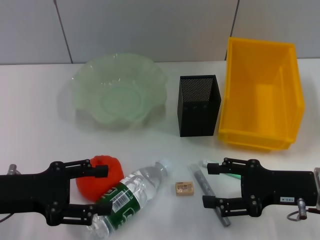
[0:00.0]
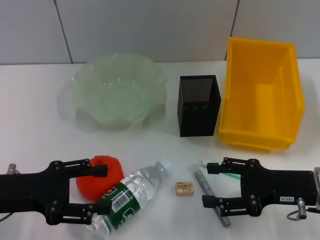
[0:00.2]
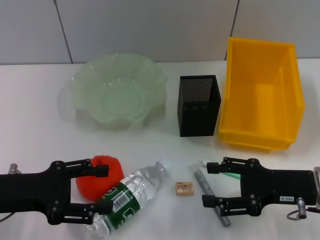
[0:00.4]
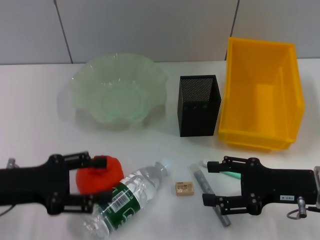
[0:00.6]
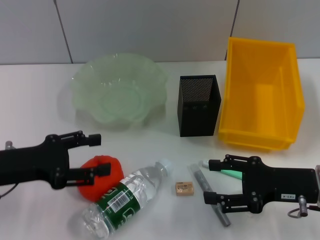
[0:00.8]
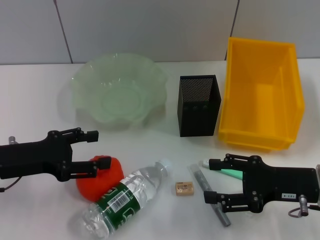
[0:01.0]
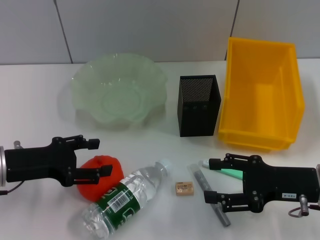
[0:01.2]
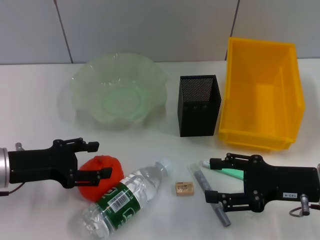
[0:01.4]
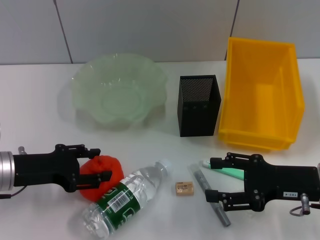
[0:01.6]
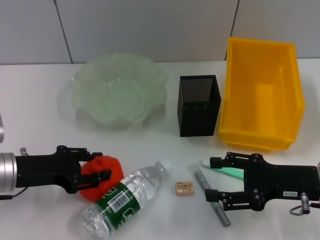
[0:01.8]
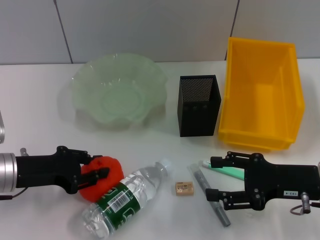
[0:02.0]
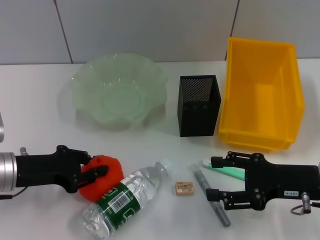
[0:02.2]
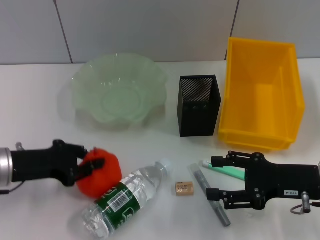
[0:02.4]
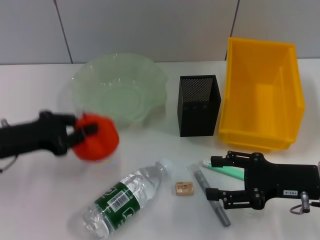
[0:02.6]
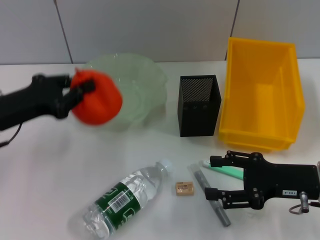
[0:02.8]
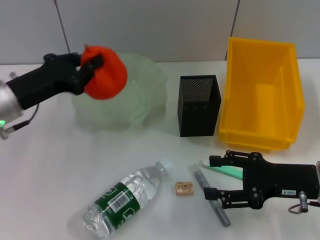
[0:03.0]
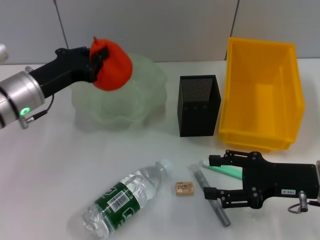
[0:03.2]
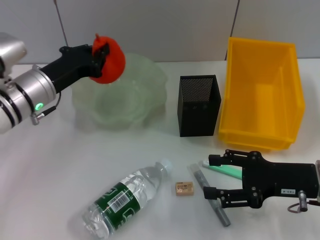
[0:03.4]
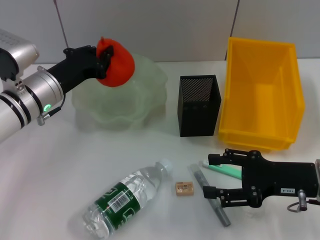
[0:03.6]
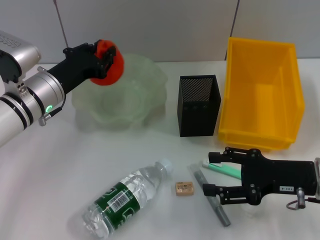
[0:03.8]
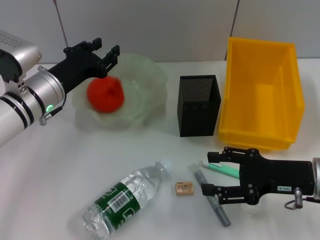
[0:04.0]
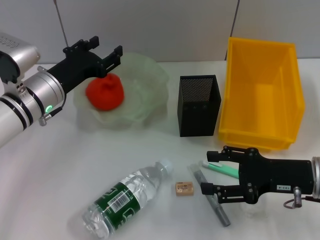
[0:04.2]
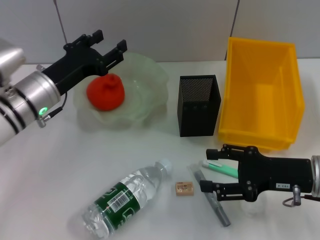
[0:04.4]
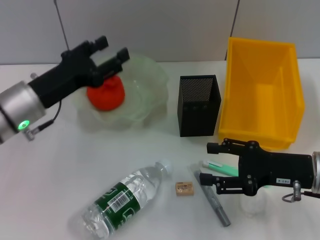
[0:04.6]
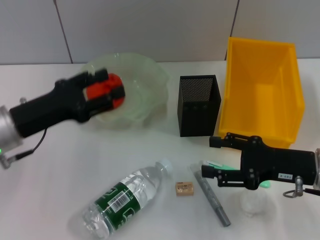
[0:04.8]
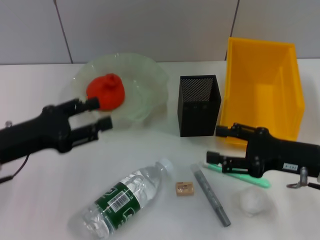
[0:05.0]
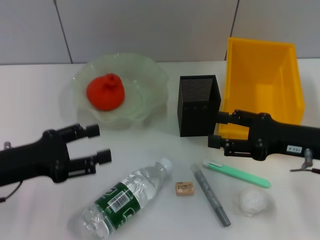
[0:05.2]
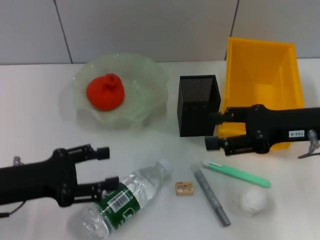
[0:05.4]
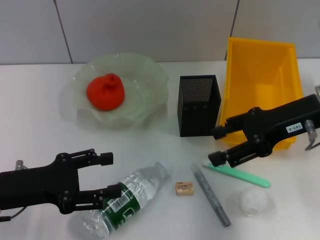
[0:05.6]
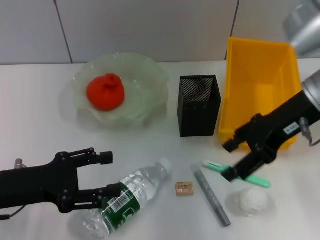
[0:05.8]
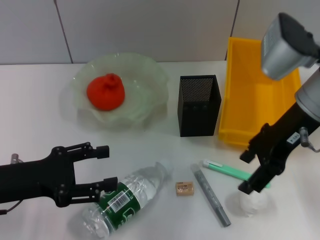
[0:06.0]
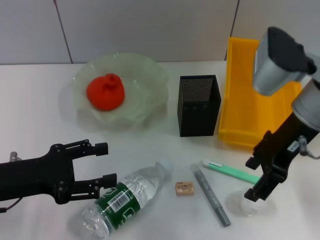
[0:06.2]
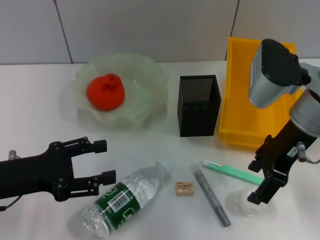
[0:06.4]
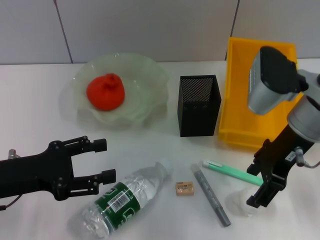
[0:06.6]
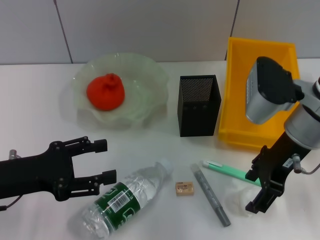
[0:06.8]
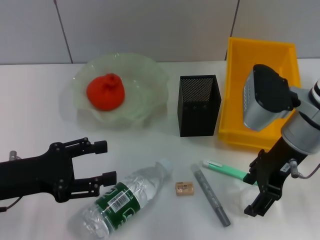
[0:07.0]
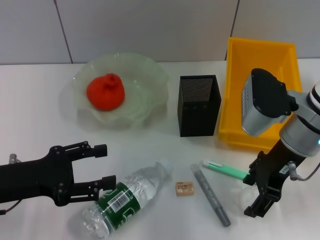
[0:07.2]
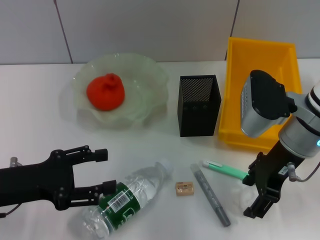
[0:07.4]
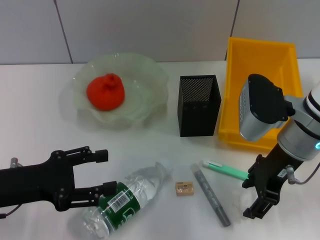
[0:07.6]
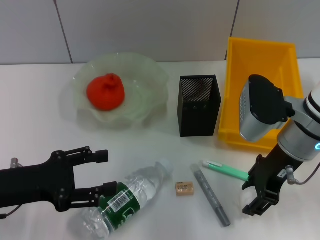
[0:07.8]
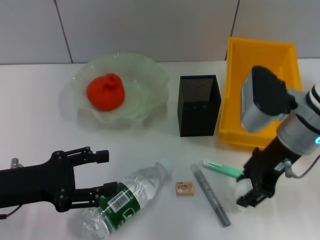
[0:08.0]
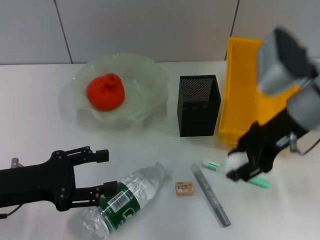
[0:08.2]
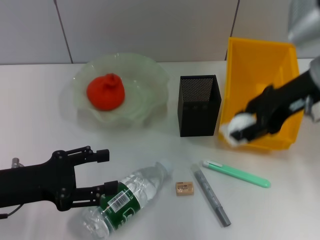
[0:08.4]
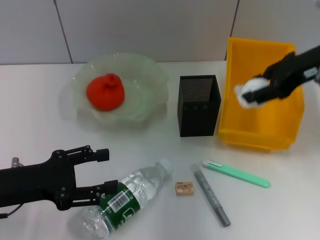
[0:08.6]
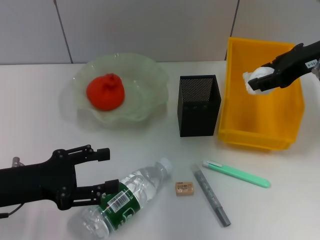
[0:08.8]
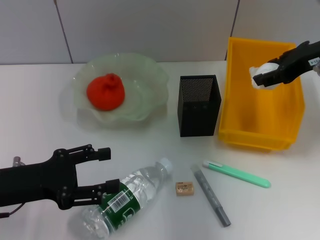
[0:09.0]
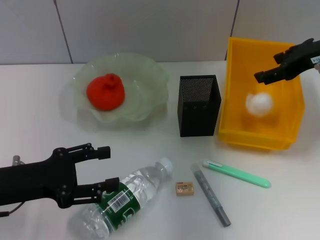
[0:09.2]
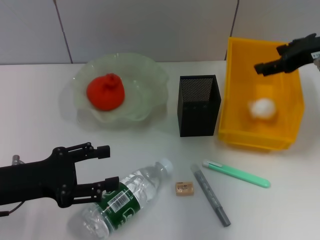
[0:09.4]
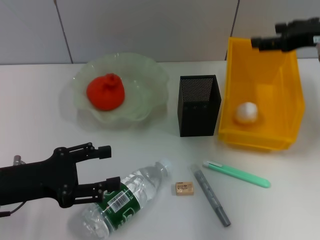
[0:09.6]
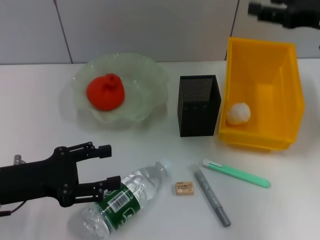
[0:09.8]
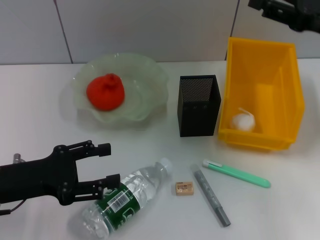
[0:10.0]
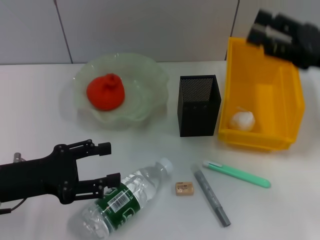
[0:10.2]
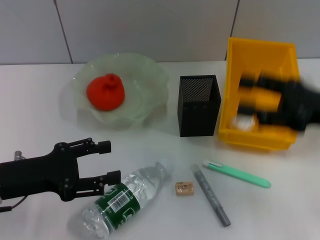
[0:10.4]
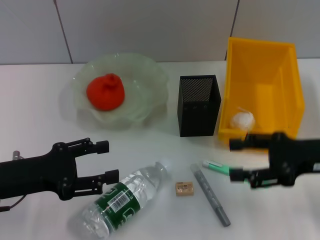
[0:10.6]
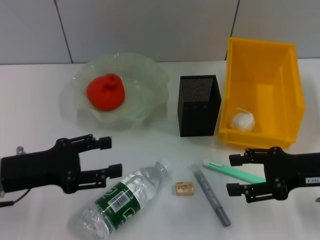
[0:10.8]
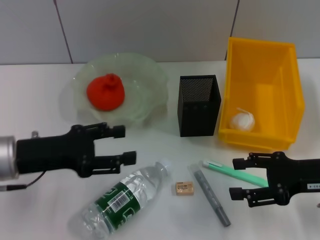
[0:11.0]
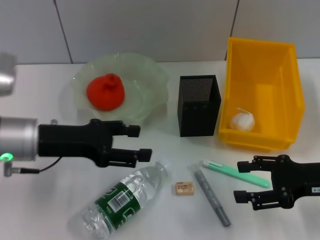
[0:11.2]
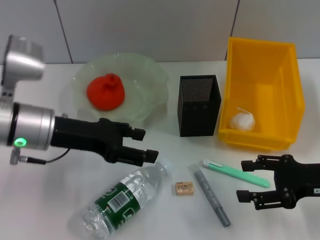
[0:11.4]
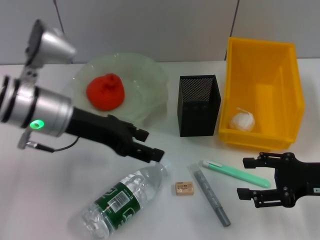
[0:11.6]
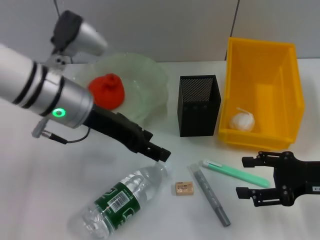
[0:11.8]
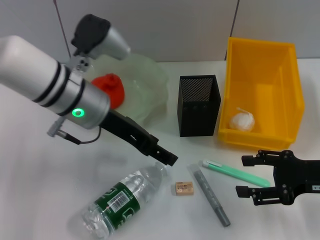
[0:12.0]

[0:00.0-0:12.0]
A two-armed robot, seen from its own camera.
Step, 0:00.0 to 0:02.2: Grab the orange with the left hand.
Step, 0:02.4 to 0:04.0: Place the orange into the fruit bowl with the left hand.
Step, 0:04.2 to 0:07.8: Grab the paper ball with the right hand.
Step, 0:08.0 to 0:09.6: Place the paper ball into the trash can with the right hand.
0:00.0 to 0:01.6: The left gripper moves approximately 5 cm.
0:01.6 to 0:03.0: The left gripper moves some 5 cm, and closes up.
0:03.0 to 0:04.4: The left gripper moves roughly 5 cm, and opens.
0:04.4 to 0:06.0: The left gripper travels backward and to the left by approximately 15 cm, while the right gripper is displaced upward, forward and to the left by approximately 15 cm.
0:06.0 to 0:07.6: The right gripper travels downward by some 5 cm.
0:07.6 to 0:09.0: The right gripper is displaced upward, to the right and forward by some 15 cm.
0:09.0 to 0:10.4: The right gripper shifts some 10 cm backward and downward, and opens up.
0:10.4 to 0:12.0: The right gripper heads downward, covering roughly 5 cm, while the left gripper is displaced to the right, forward and upward by roughly 20 cm.

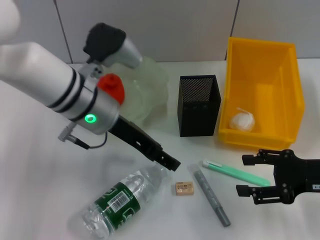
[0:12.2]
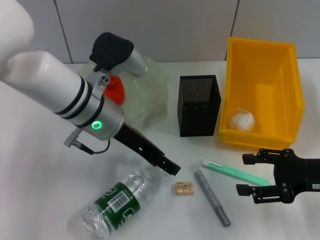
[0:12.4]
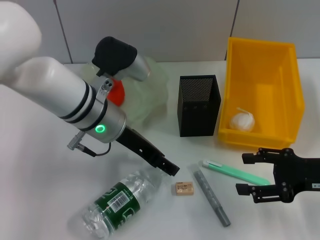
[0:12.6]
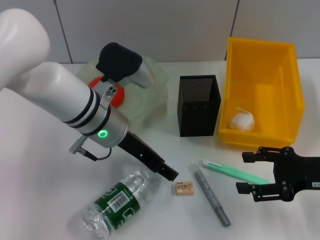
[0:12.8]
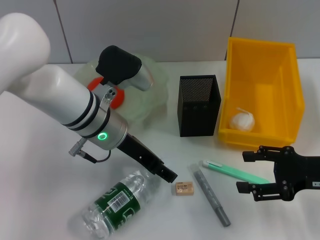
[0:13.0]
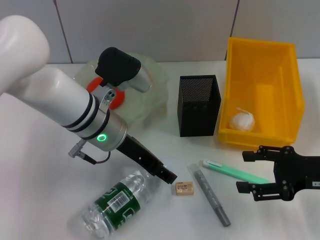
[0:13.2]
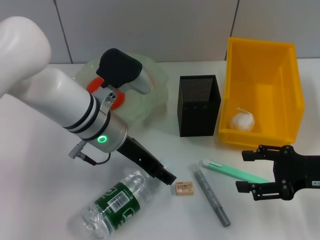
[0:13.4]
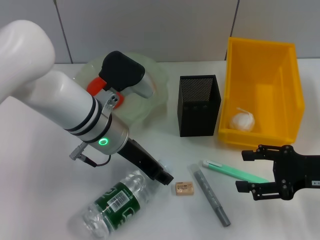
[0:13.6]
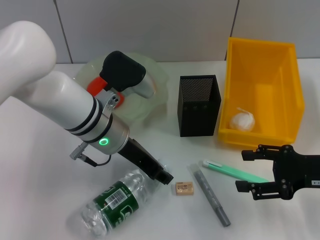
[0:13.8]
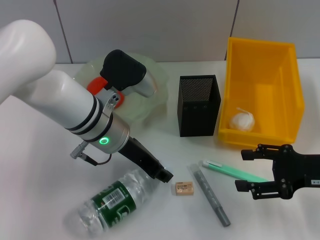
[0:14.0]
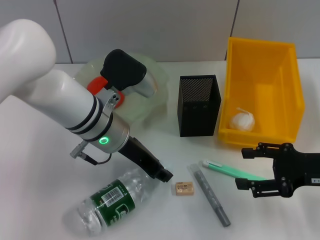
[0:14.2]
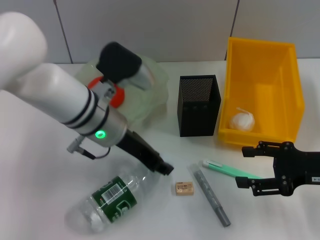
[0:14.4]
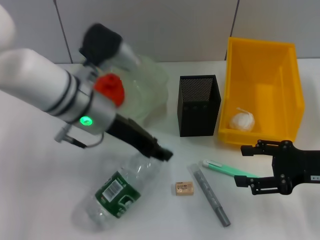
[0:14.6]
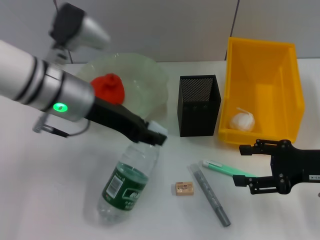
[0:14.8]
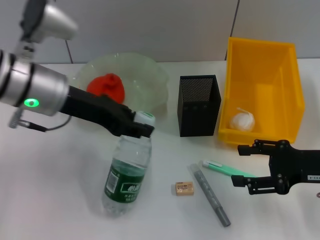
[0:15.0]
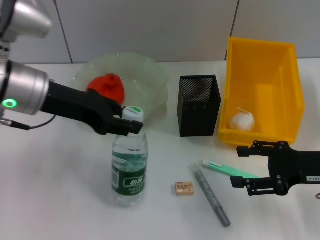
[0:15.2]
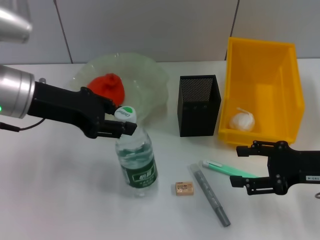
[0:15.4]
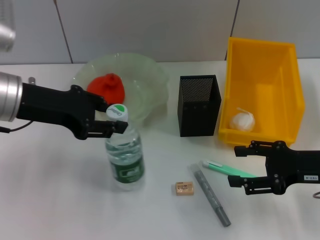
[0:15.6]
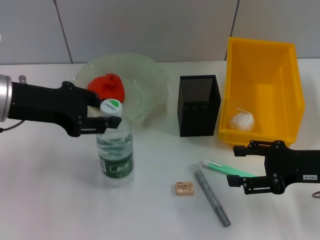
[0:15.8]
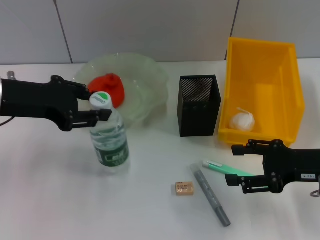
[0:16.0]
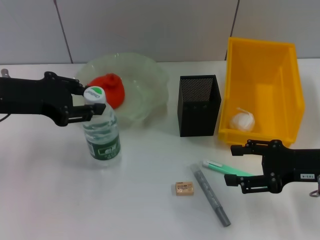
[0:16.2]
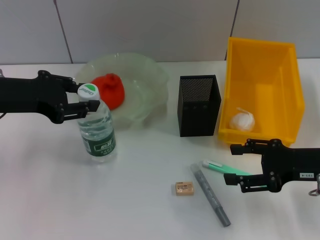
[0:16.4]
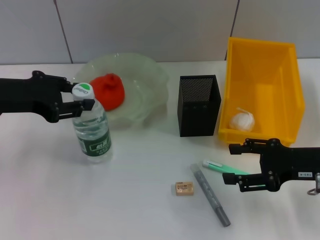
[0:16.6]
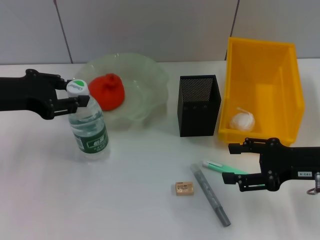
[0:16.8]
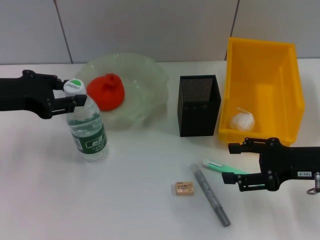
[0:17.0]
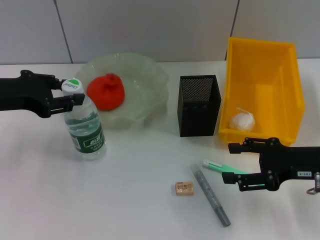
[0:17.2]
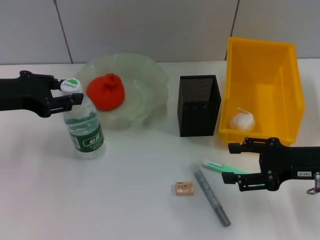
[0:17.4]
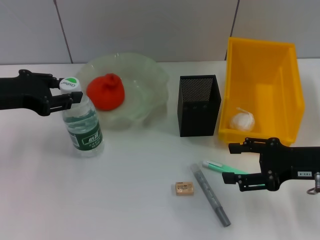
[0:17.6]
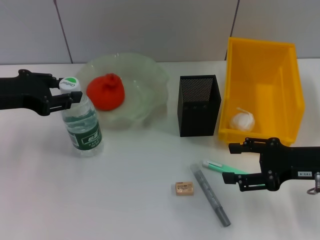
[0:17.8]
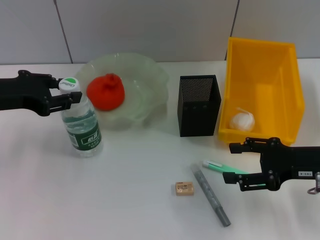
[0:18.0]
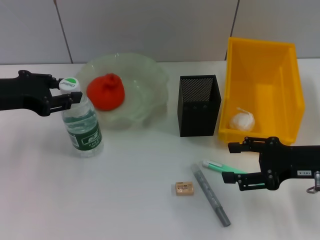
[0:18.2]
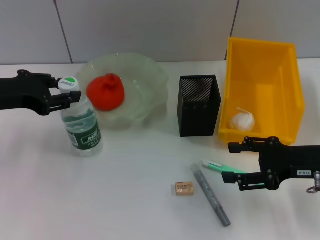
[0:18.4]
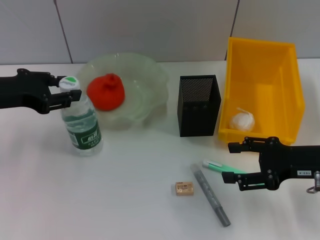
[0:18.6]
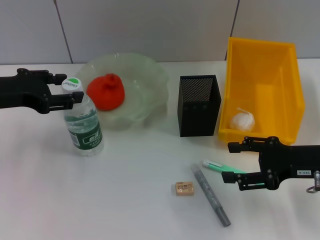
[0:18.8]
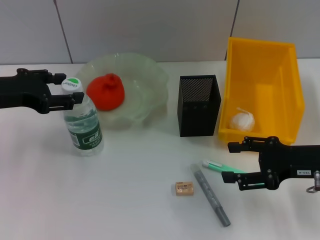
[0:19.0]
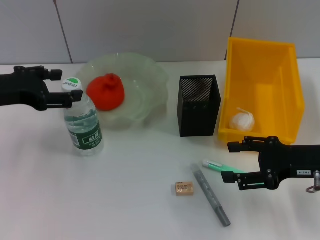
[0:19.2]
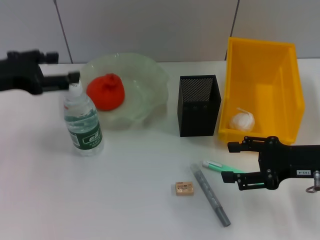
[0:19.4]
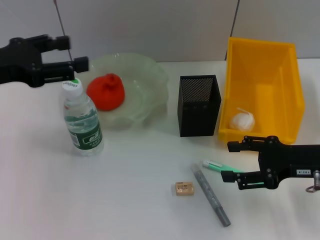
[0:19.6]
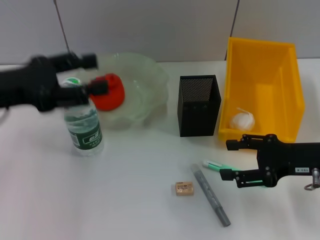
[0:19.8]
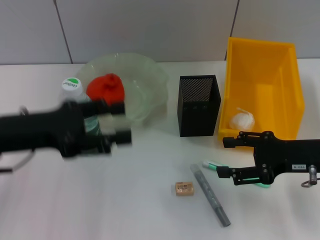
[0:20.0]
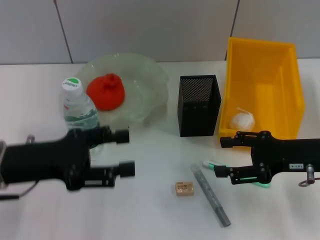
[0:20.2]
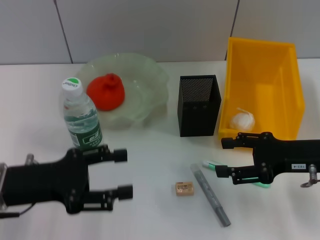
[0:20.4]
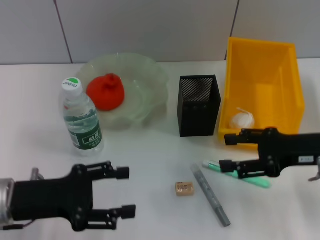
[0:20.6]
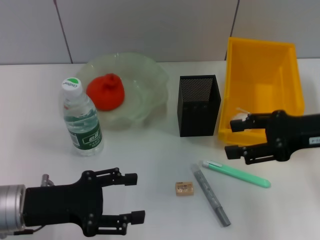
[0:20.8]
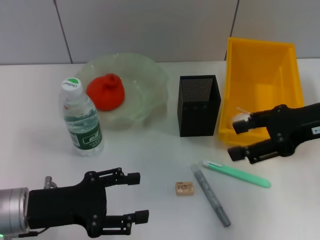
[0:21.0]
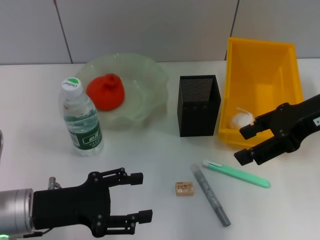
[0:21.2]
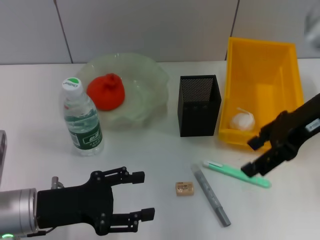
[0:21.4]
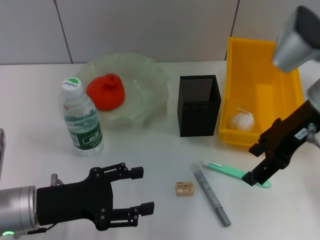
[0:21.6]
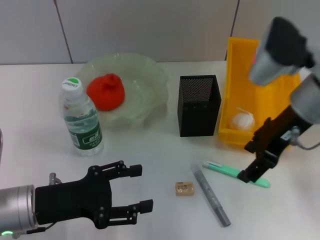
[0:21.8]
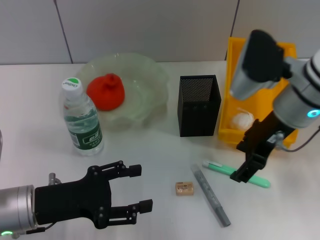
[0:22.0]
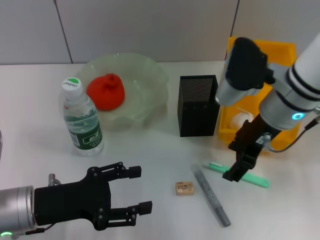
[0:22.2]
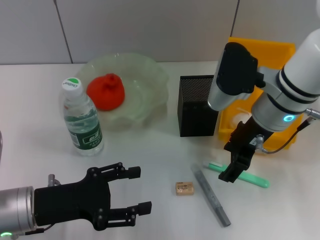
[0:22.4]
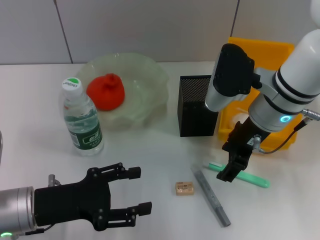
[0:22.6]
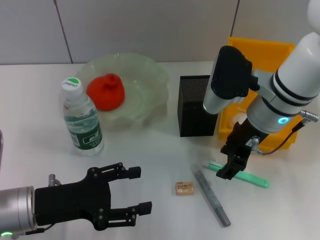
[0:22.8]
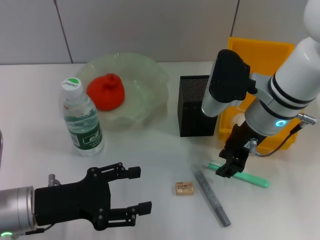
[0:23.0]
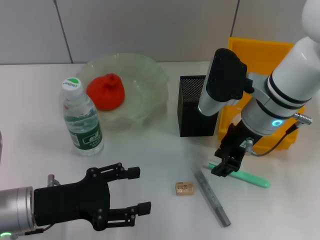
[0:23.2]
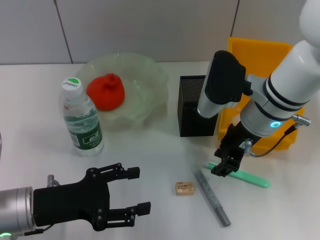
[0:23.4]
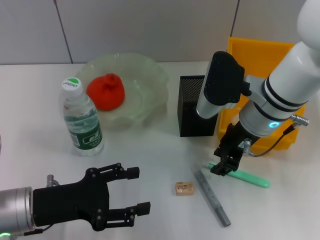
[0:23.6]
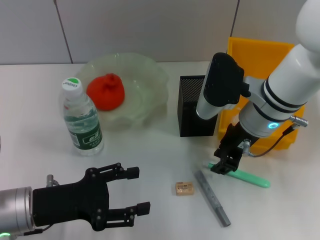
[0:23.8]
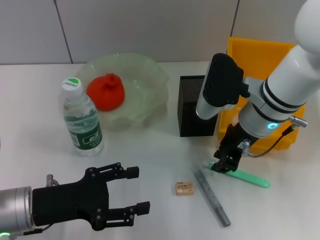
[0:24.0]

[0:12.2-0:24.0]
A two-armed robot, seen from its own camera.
Step, 0:12.2 to 0:14.2: Grab the water bottle with the left hand.
Step, 0:14.4 to 0:18.8: Place the water bottle on the table with the left hand.
0:12.2 to 0:13.6: The grippers make only small movements.
0:13.6 to 0:15.2: The left gripper travels to the left and upward by some 10 cm.
0:15.2 to 0:16.6: The left gripper travels to the left by approximately 5 cm.
0:16.6 to 0:18.2: The grippers move only a little.
0:18.2 to 0:19.6: The left gripper opens its fingers.
0:19.6 to 0:21.0: The right gripper heads upward, covering some 10 cm, while the left gripper heads downward and backward, covering about 15 cm.
0:21.0 to 0:22.6: The right gripper heads to the left and forward, covering roughly 15 cm.
0:22.6 to 0:24.0: The right gripper closes its fingers.
